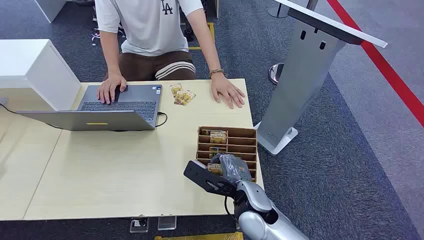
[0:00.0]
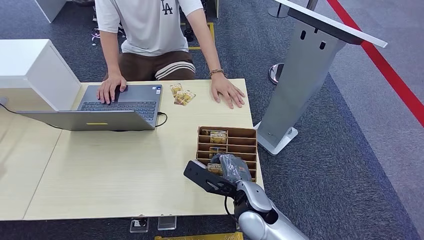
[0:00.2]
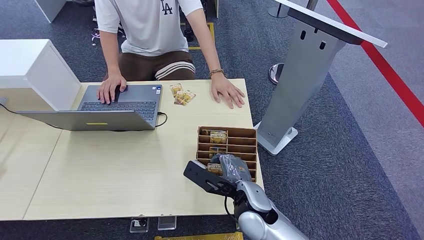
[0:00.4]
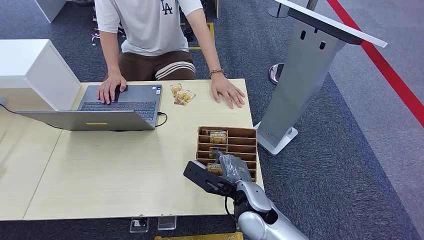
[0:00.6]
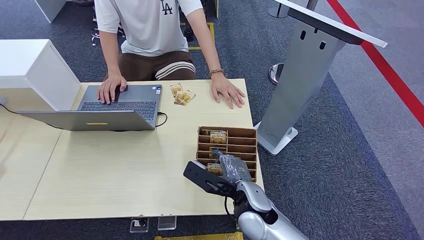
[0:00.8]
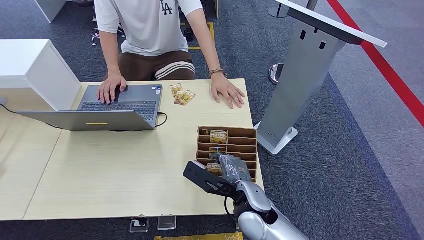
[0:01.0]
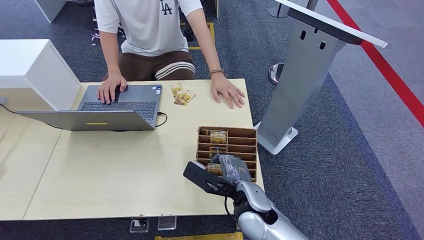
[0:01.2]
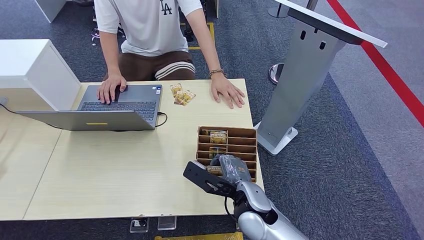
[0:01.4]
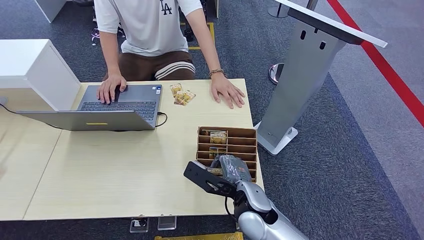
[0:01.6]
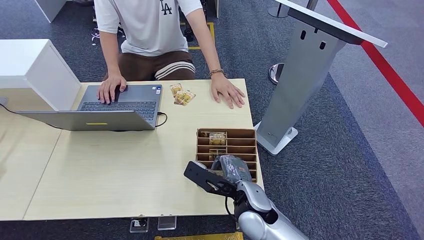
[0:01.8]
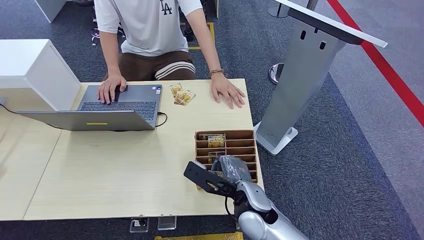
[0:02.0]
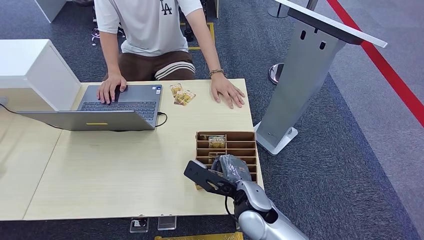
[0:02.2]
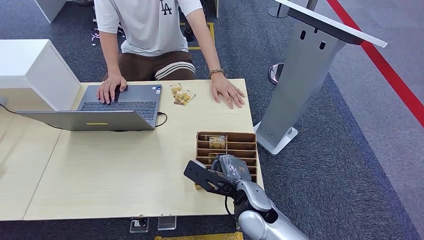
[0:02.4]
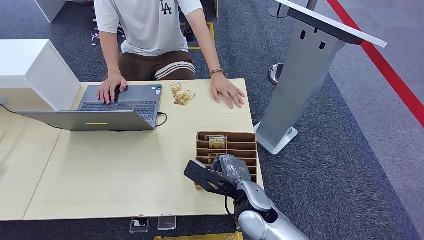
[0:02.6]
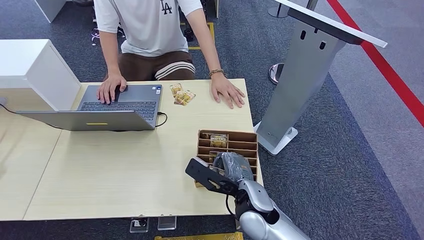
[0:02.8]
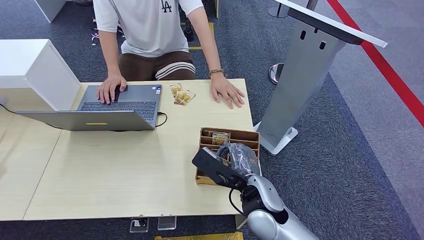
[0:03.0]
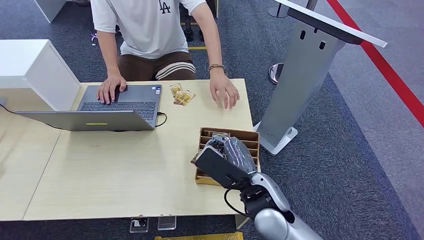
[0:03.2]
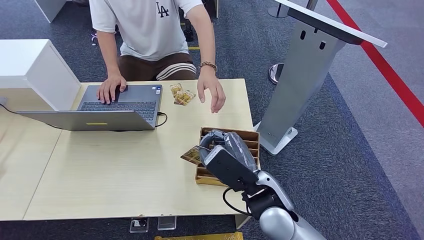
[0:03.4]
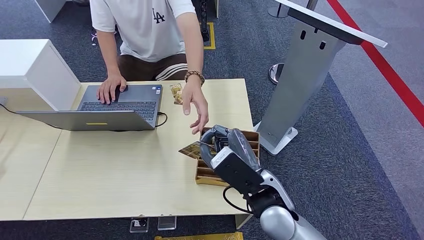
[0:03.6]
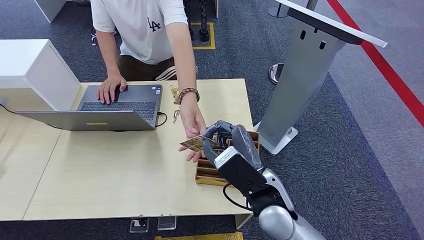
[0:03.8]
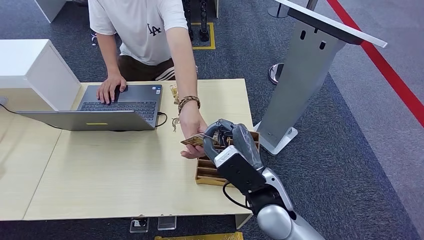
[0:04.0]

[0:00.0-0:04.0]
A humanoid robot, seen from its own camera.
Step, 0:00.0 to 0:03.4: Pick up the key card from the card box.
Step, 0:03.8 to 0:04.0: Hand the key card to the target.
0:01.4 to 0:02.6: Neither hand changes place.
0:02.6 to 0:04.0: The right hand heads upward, covering about 10 cm.
